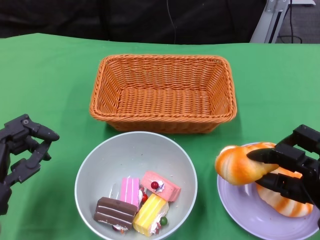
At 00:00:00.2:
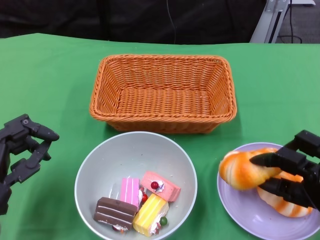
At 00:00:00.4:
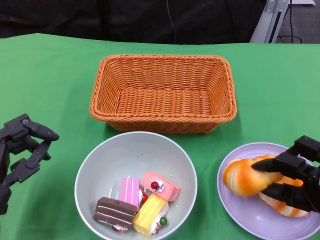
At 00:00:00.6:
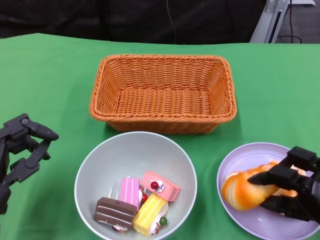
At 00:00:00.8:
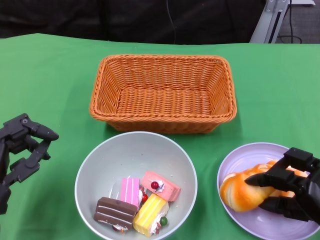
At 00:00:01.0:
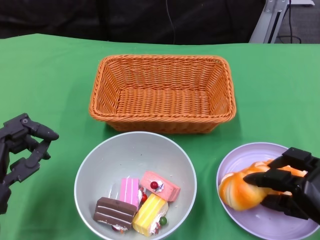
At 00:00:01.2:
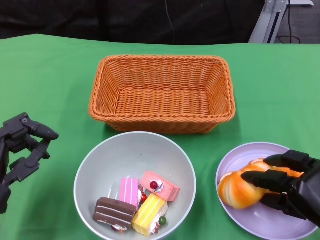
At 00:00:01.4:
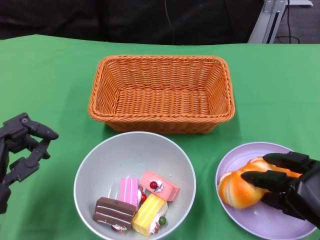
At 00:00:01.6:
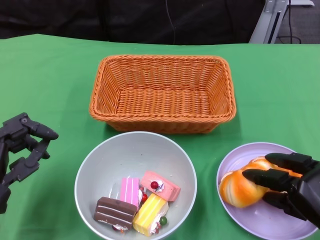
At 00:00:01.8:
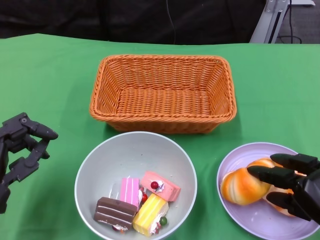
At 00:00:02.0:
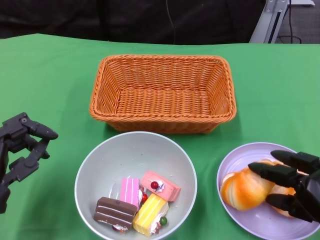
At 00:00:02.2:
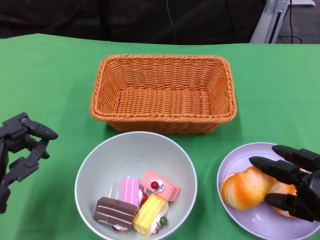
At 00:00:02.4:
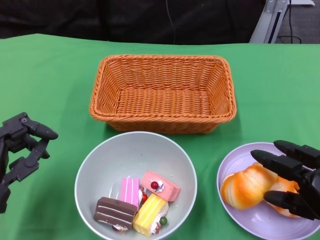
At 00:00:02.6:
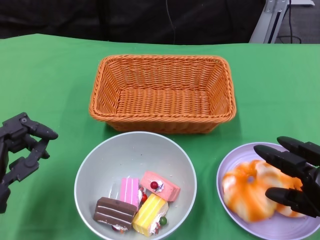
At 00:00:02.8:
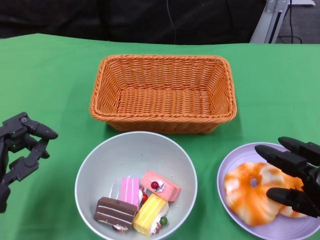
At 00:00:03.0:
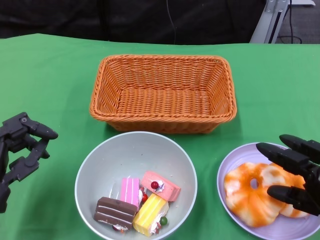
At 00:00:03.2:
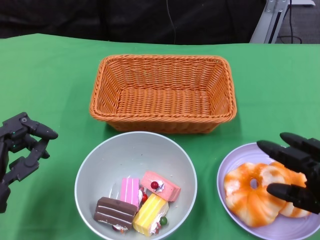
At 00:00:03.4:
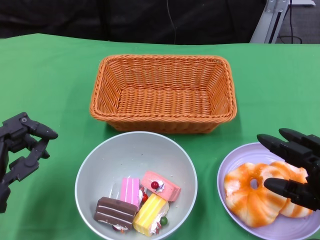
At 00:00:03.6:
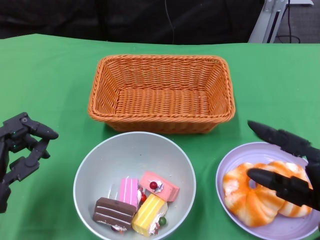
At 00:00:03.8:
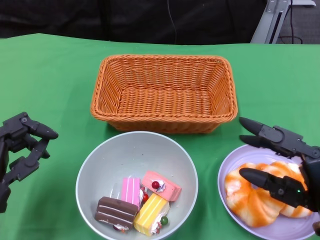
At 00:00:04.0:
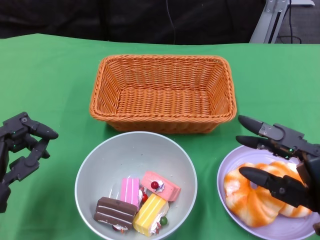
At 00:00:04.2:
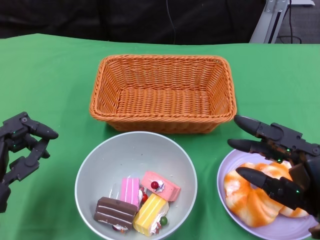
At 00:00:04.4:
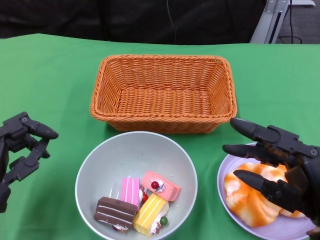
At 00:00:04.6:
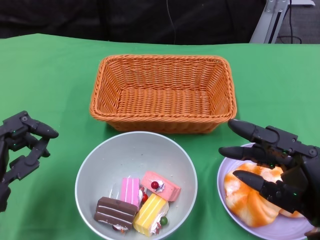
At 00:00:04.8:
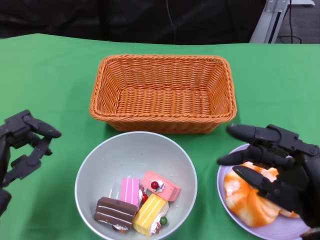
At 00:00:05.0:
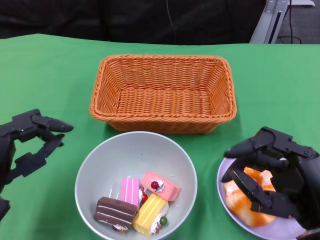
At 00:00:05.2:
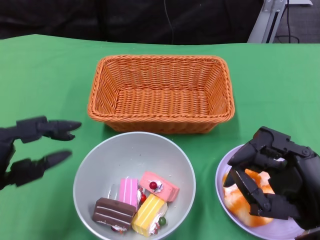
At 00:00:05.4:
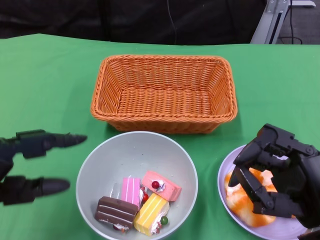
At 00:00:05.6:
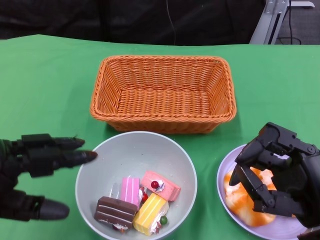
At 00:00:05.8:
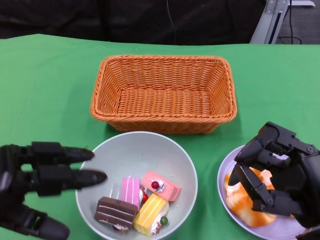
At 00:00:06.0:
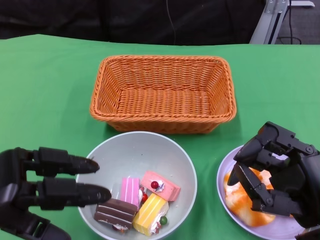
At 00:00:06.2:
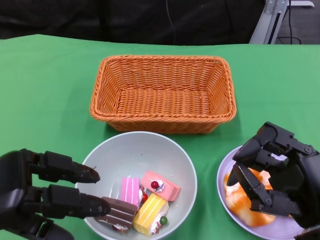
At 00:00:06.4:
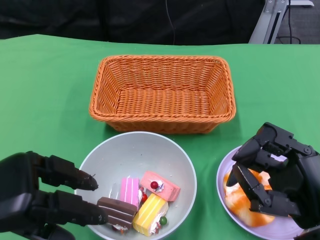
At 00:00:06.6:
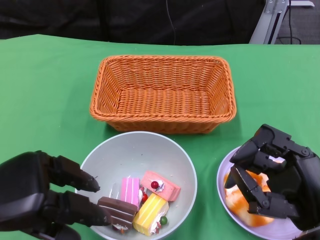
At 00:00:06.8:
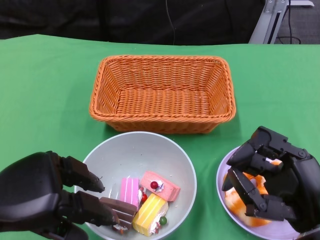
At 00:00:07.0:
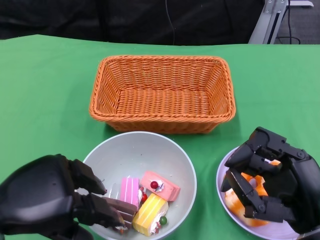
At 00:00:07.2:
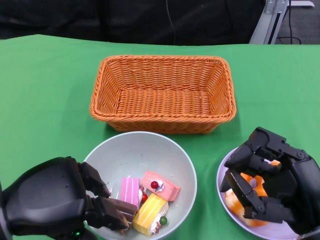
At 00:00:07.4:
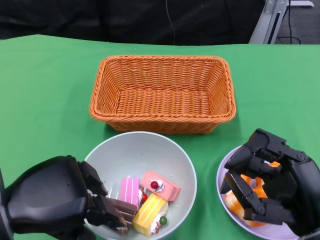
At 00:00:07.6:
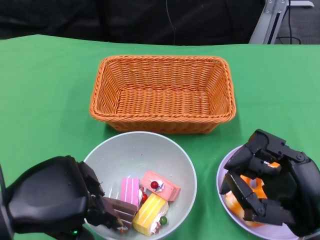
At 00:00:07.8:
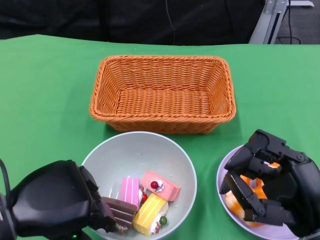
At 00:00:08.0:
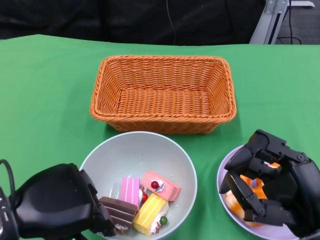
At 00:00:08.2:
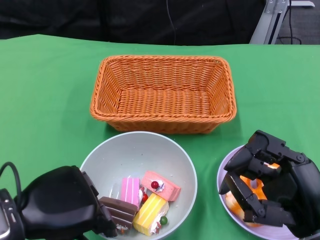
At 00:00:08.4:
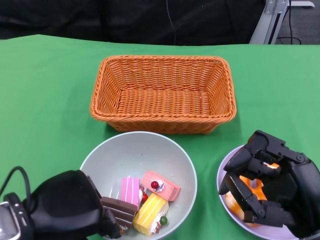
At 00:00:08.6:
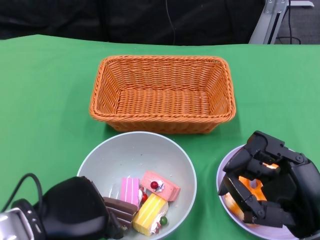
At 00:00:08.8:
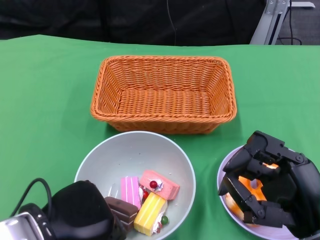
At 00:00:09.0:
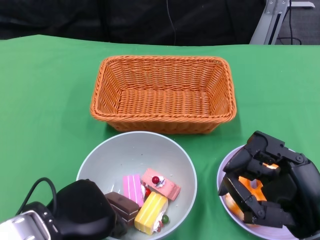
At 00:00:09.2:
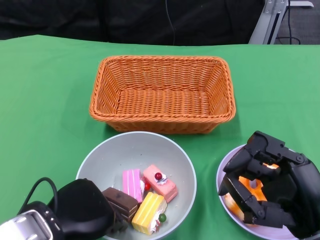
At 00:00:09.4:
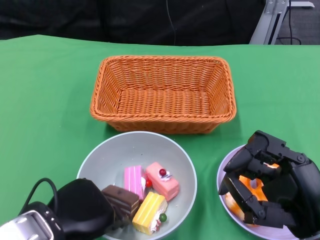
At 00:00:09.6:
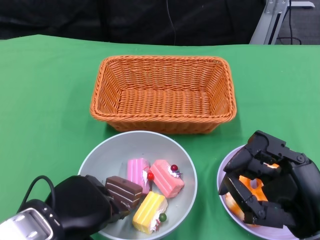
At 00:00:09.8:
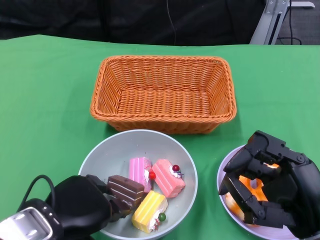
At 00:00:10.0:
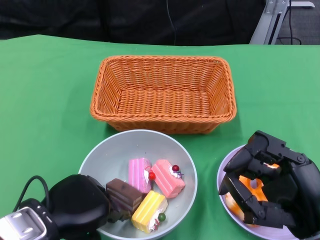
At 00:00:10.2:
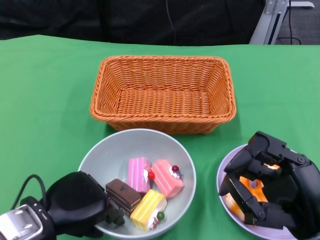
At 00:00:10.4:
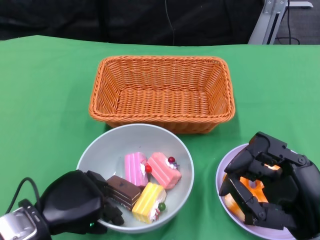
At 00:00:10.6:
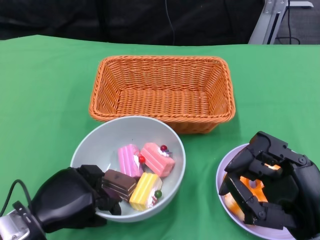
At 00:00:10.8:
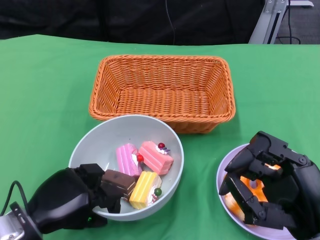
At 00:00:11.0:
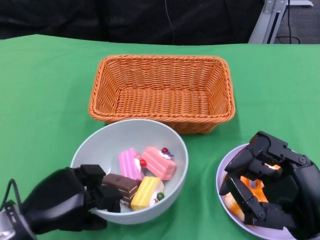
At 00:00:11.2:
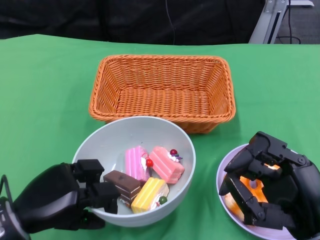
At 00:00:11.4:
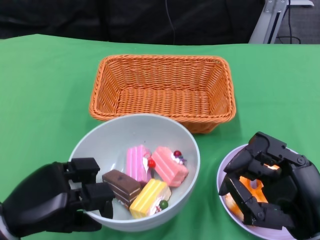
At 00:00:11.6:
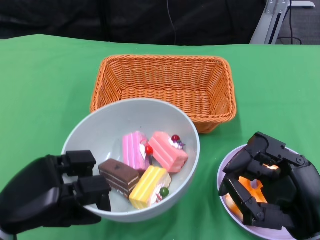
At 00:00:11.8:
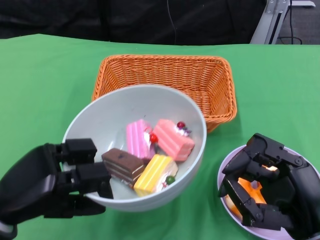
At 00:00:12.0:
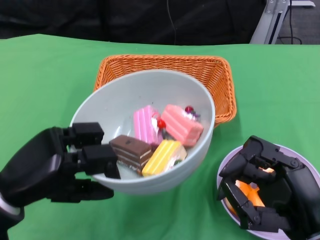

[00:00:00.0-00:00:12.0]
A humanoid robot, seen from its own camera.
Step, 00:00:00.0 to 00:00:03.4: Pick up the bread with the right gripper and place it on the plate.
Step, 00:00:03.6 to 00:00:10.4: Grasp the bowl with the left gripper.
00:00:01.6 to 00:00:03.0: The hands move only a little.
00:00:03.0 to 00:00:04.4: The right hand heads upward, covering roughly 5 cm.
00:00:04.4 to 00:00:06.0: The left hand shifts approximately 5 cm upward.
00:00:06.0 to 00:00:07.6: The left hand moves some 5 cm.
00:00:07.6 to 00:00:09.0: The left hand moves some 5 cm.
00:00:09.0 to 00:00:10.4: The left hand shifts by roughly 5 cm.
00:00:10.4 to 00:00:12.0: The left hand shifts approximately 5 cm upward.

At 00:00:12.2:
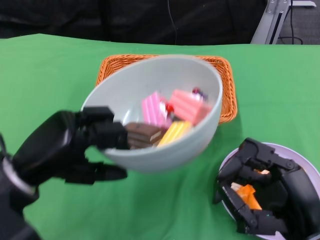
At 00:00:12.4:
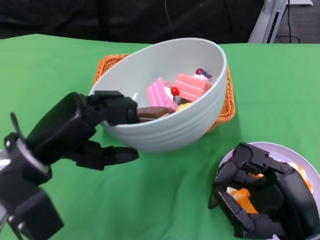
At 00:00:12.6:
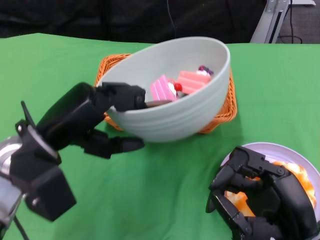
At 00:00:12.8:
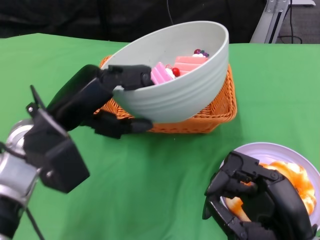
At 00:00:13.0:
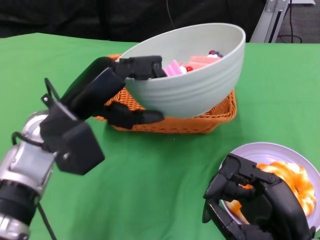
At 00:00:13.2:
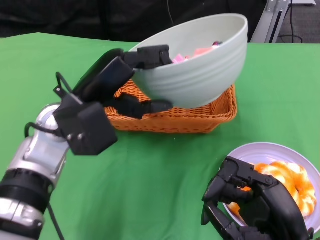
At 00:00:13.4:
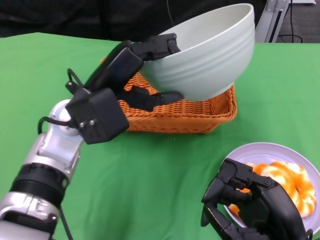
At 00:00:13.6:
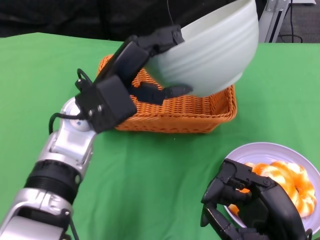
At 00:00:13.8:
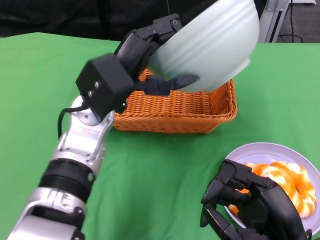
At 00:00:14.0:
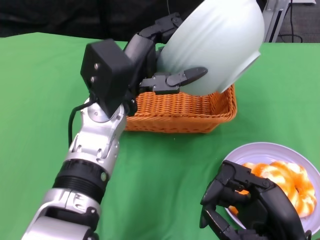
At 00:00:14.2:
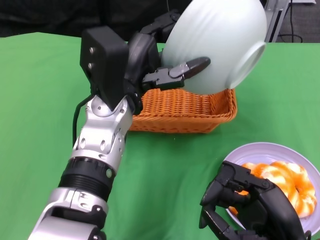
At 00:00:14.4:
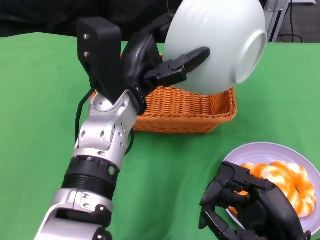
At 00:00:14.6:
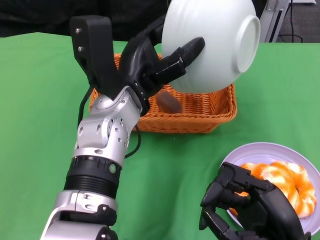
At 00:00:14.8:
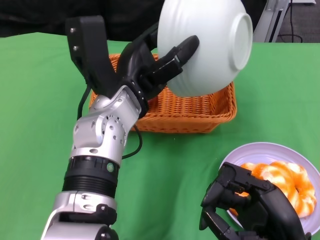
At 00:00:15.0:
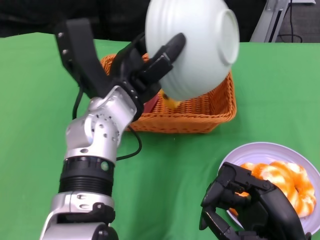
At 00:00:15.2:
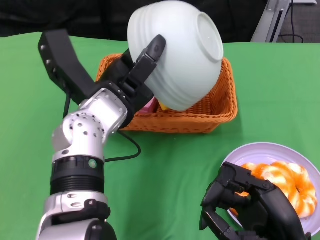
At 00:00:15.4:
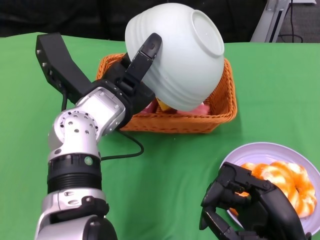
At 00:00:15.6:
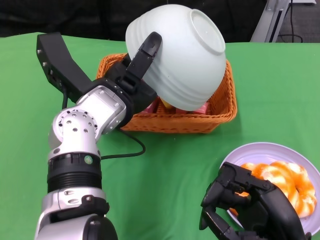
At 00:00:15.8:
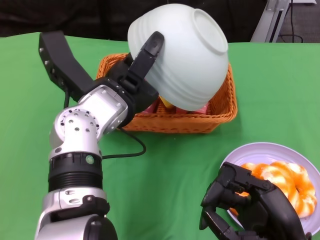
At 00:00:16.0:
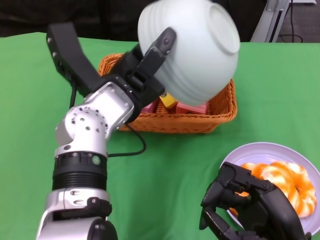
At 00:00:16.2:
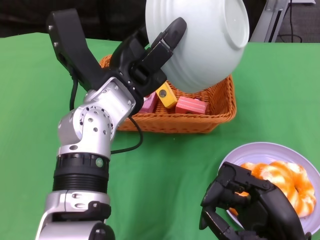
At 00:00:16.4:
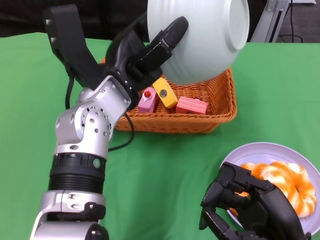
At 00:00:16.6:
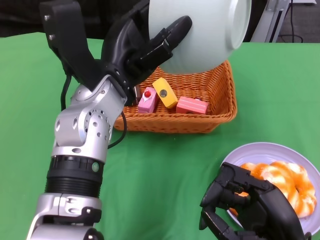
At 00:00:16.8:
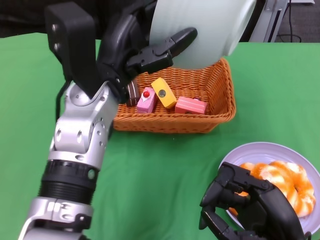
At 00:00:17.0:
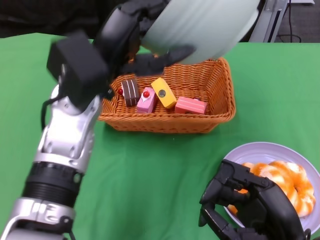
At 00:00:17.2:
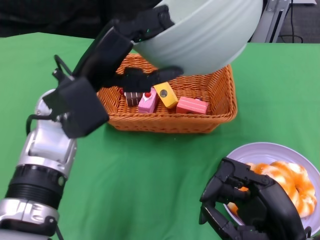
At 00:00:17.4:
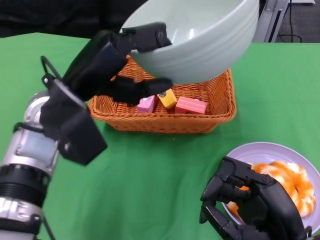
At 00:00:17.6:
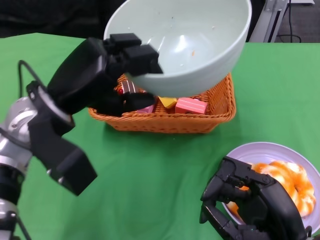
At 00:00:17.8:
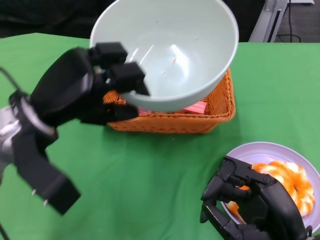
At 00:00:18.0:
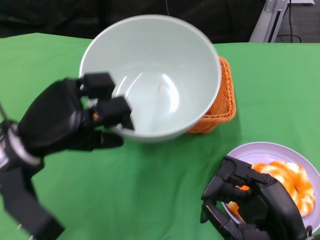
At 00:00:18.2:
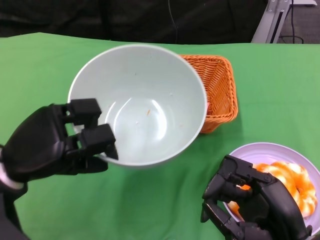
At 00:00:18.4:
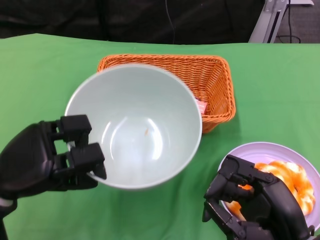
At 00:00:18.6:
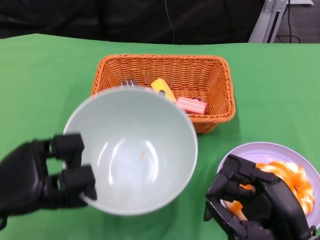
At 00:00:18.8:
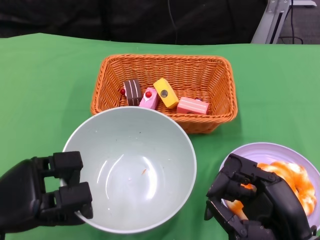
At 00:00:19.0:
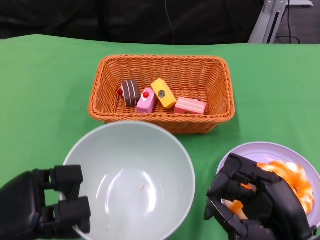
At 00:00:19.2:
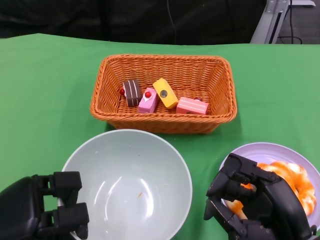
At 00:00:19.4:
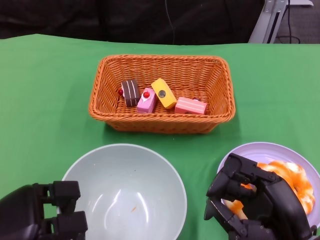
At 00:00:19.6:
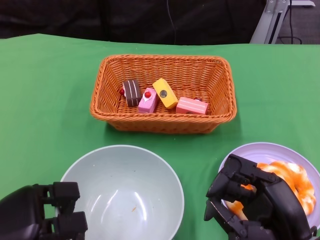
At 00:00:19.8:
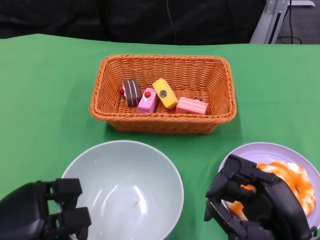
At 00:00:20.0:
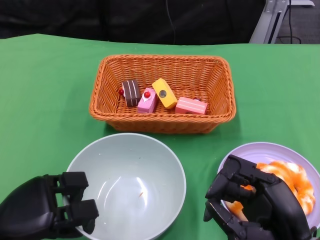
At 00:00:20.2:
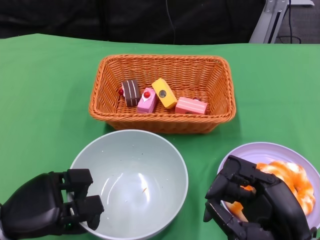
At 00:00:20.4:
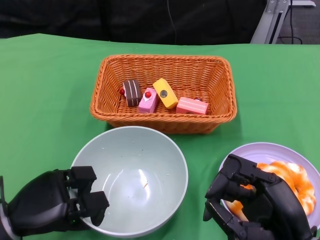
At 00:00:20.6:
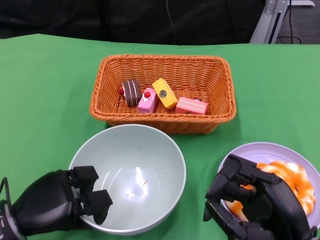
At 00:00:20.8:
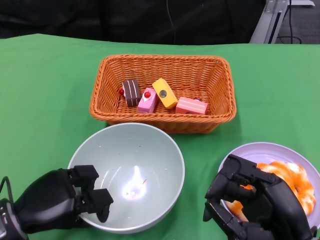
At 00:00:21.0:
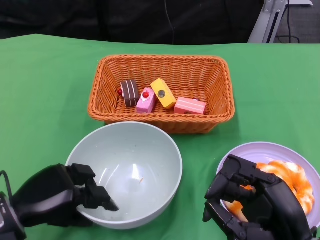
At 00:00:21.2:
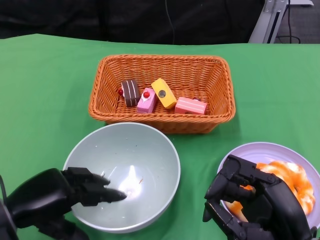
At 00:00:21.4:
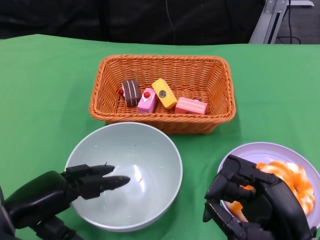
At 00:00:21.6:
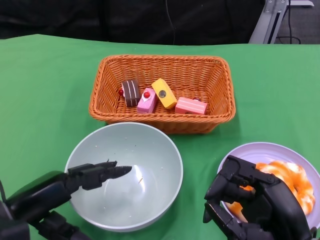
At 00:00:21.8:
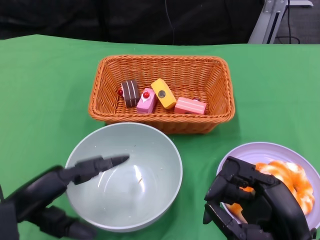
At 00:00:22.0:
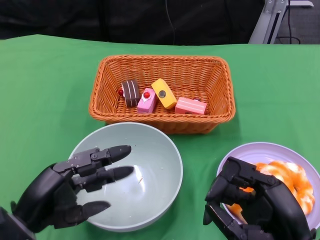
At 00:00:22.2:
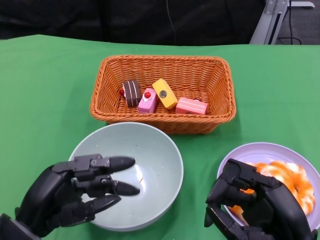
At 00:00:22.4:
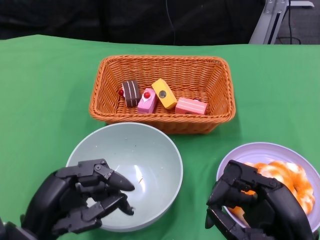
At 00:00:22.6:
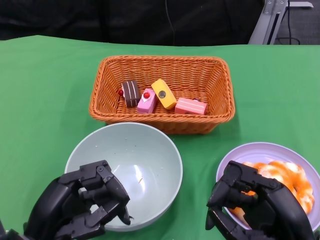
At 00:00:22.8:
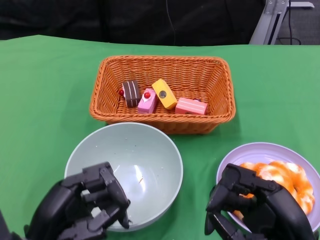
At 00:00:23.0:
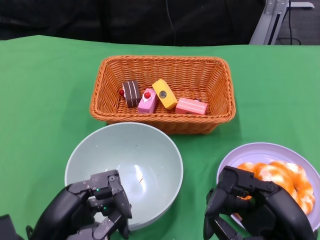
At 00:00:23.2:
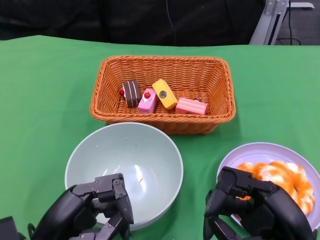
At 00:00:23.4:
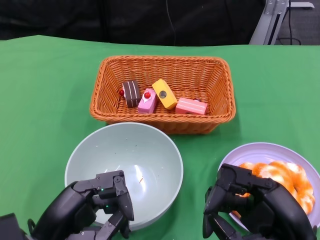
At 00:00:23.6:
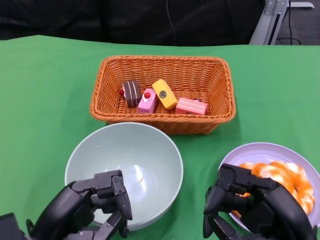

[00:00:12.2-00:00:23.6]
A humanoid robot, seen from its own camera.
Step, 00:00:12.2 to 00:00:16.0: Pour the cake into the basket with the left gripper.
Step, 00:00:16.2 to 00:00:21.0: Place the bowl on the table with the left gripper.
00:00:12.2 to 00:00:13.6: The left hand shifts roughly 15 cm to the right and forward.
00:00:16.4 to 00:00:17.8: The left hand is displaced to the left by about 10 cm.
00:00:17.8 to 00:00:19.4: The left hand shifts approximately 20 cm downward, backward and to the left.
00:00:19.4 to 00:00:20.8: The hands move only a little.
00:00:20.8 to 00:00:22.2: The left hand moves roughly 5 cm.
00:00:22.2 to 00:00:23.6: There are only small adjustments of the hands.
